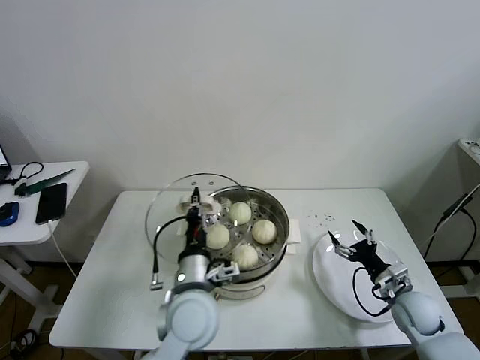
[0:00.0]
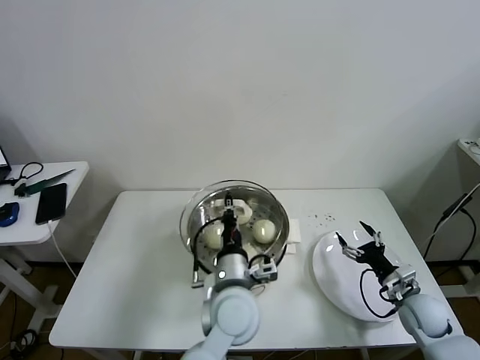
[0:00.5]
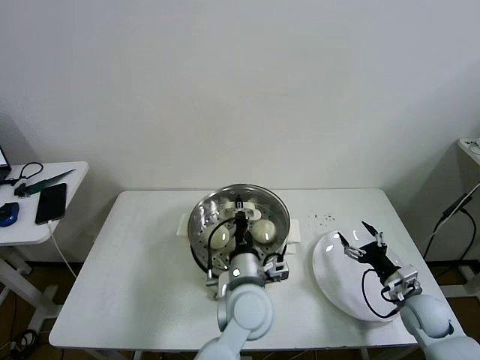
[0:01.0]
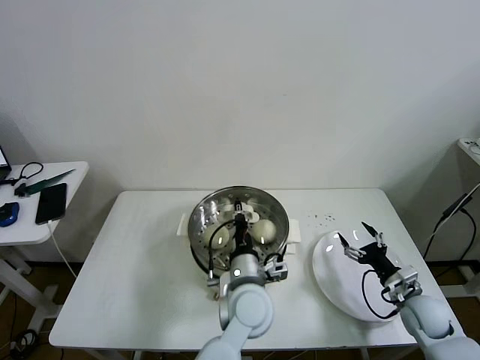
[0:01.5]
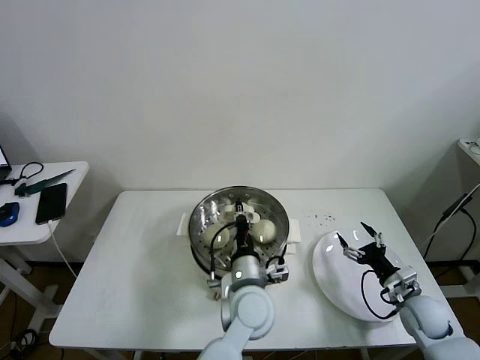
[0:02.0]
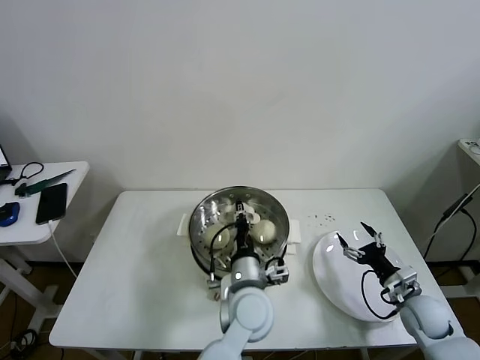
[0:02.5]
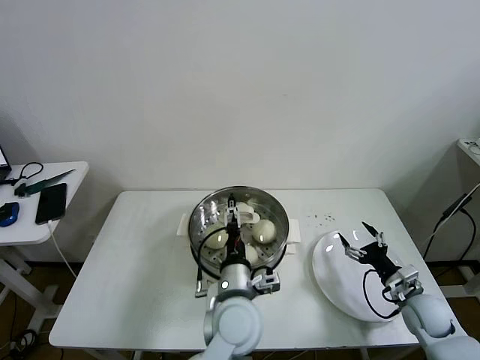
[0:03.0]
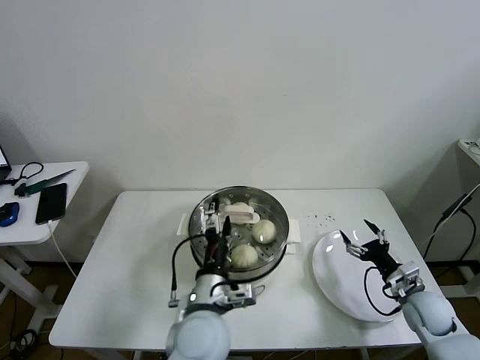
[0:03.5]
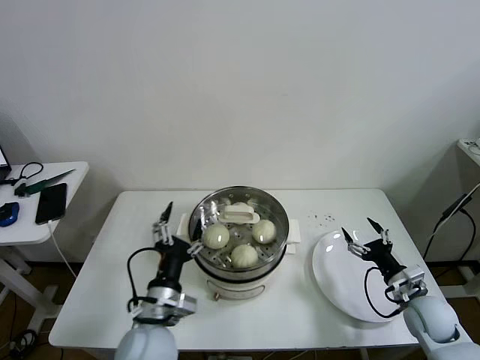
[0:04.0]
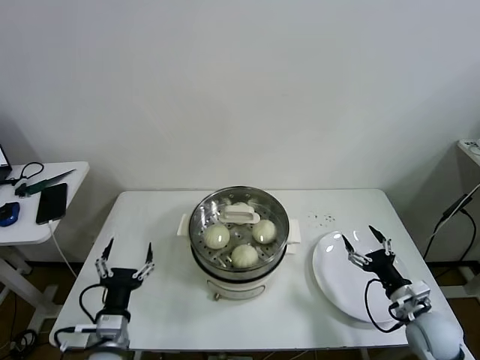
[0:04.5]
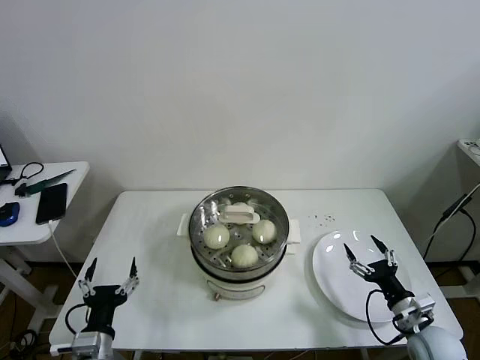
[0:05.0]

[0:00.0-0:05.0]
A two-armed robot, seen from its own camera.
Task of the whole recording: take steamed baozi put them in steamer then cover it.
Step, 0.0 to 2.5 s: Place the pot lid on the steamer with left gripper.
0.0 to 2.5 s: The left gripper heads to the right and downward, covering some 15 cm.
2.5 to 5.0 s: The left gripper shifts roughly 35 cm to the left and backward, and opens its fingers. Meanwhile the right gripper heads backward, covering some 5 cm.

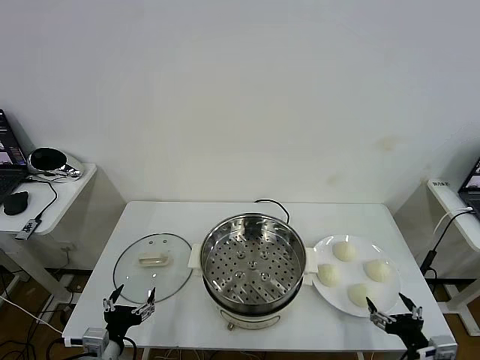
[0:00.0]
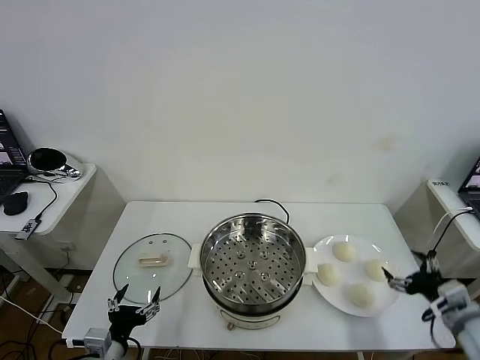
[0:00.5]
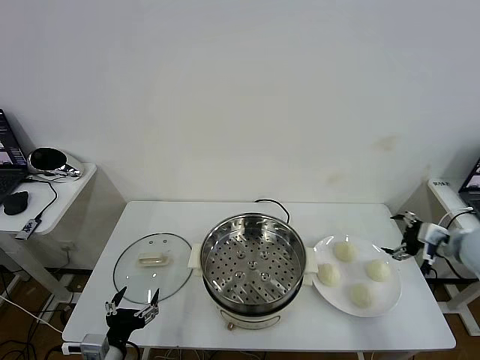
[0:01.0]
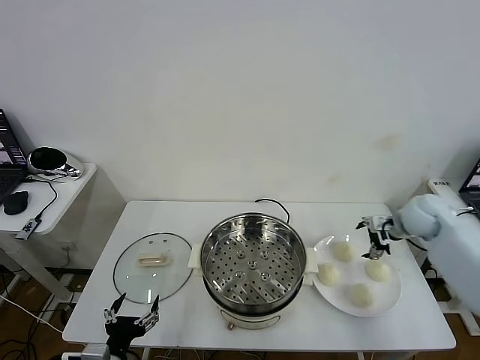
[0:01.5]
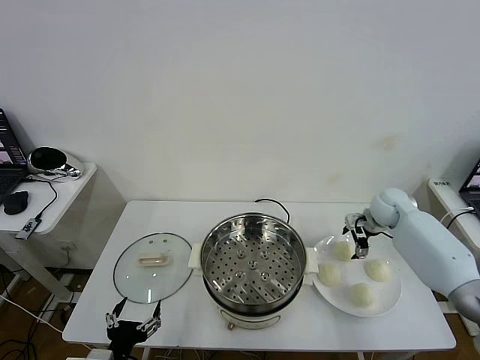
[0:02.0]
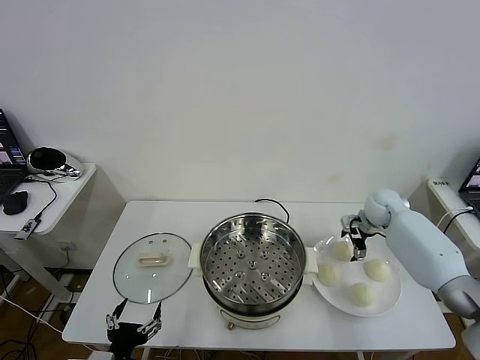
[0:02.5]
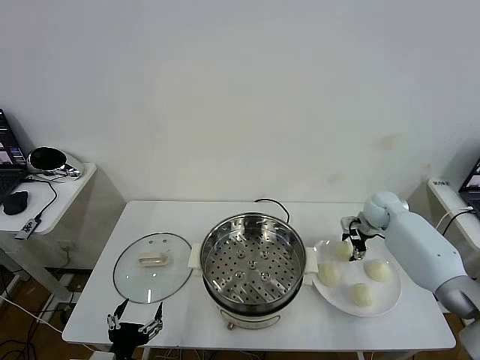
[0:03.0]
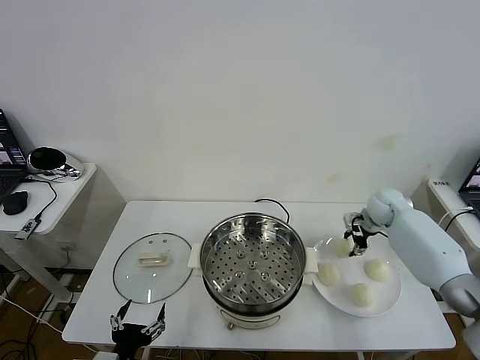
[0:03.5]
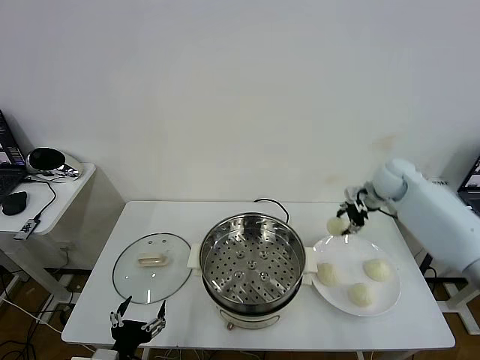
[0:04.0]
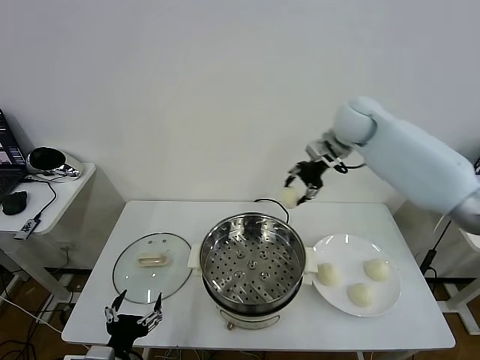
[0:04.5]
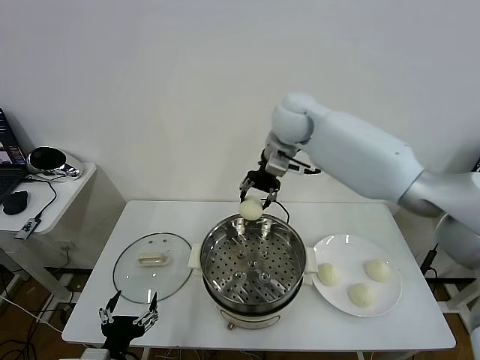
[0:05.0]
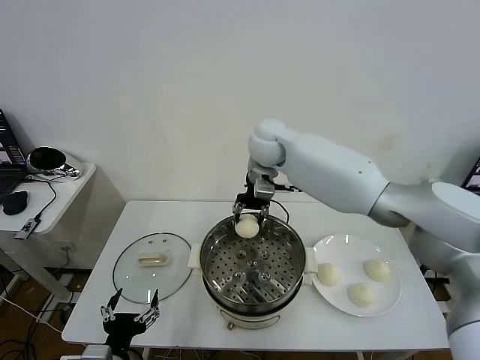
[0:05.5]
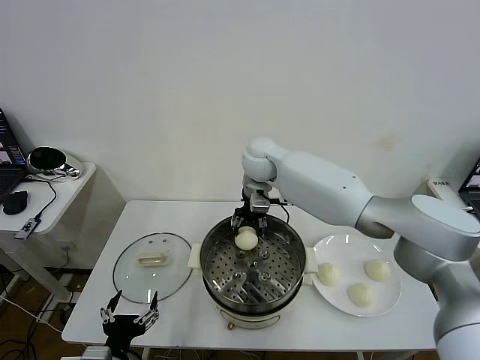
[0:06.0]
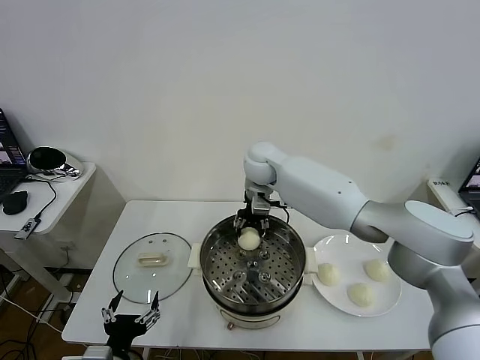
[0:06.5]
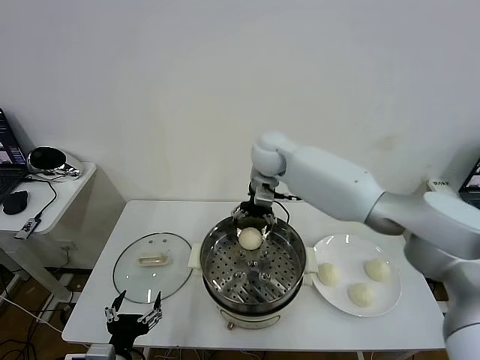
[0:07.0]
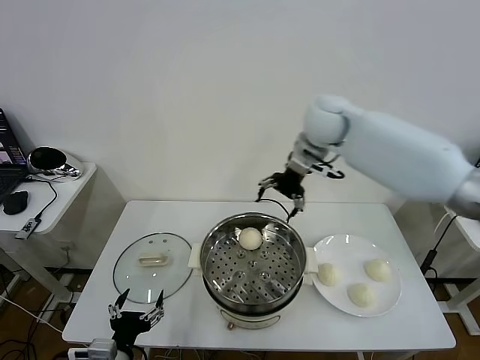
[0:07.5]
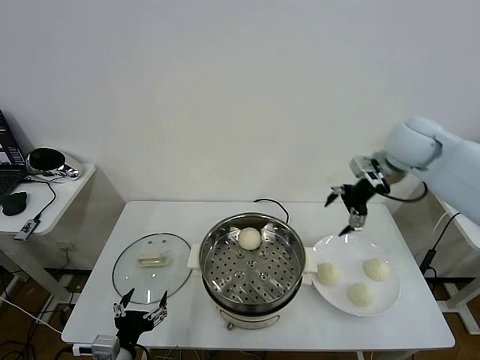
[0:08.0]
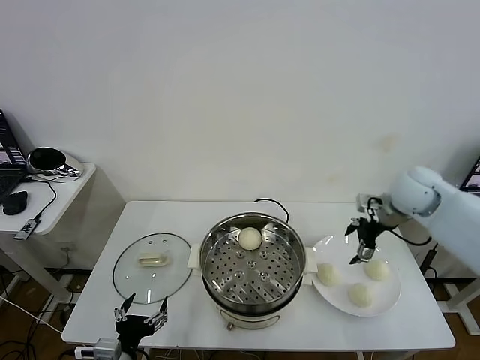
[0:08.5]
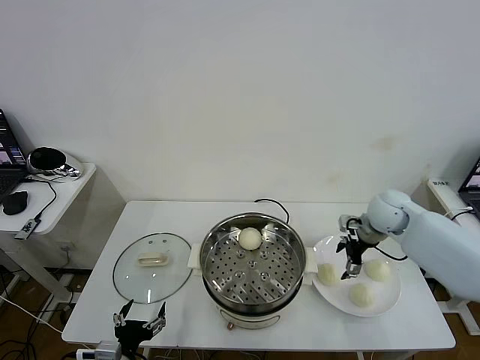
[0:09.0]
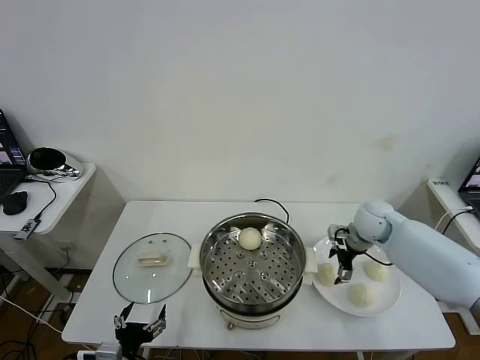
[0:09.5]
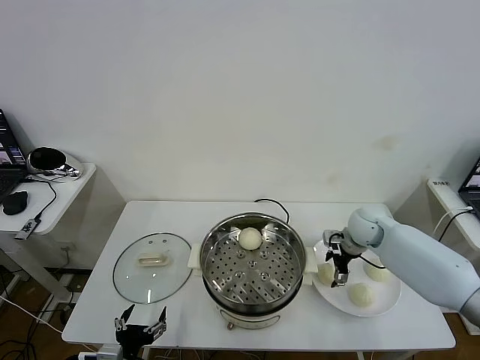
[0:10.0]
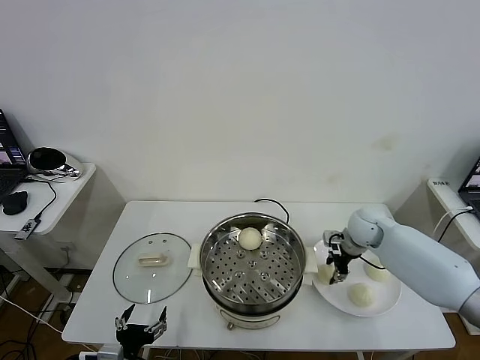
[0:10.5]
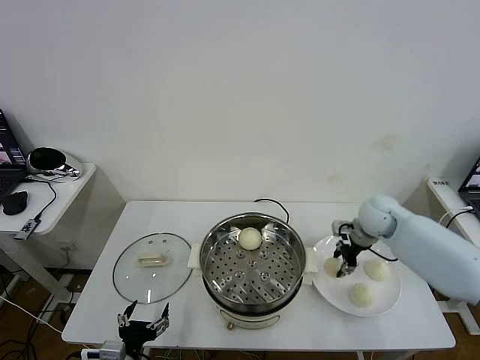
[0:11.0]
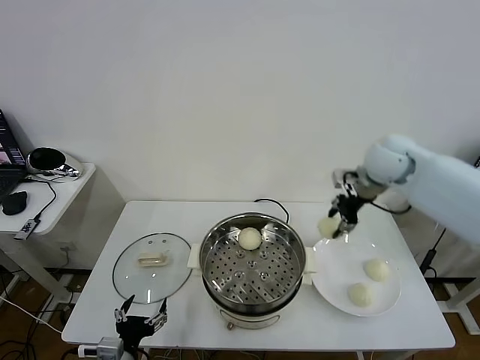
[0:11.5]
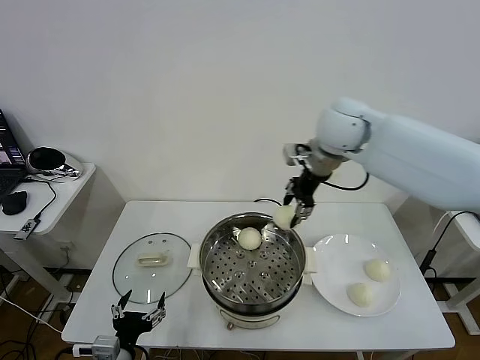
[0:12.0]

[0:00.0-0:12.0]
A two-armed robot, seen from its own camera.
Task of the whole recording: take steamed baozi put them in steamer then cover it.
Step, 0.0 to 3.0 s: Grasp the baozi in the plate with right gripper.
Step, 3.5 to 6.5 s: Place the baozi on the steamer with right gripper.
Step, 7.0 to 10.5 s: Grasp the baozi in the plate with right gripper.
2.0 to 4.0 s: The right gripper travels upward by some 15 cm, and closes its fingers.
4.0 to 6.0 s: The right gripper travels to the left by roughly 30 cm.
6.0 to 8.0 s: The right gripper moves to the right, some 30 cm, and opens up.
8.0 to 10.0 s: The right gripper travels downward by approximately 20 cm.
10.0 to 12.0 s: The right gripper heads upward and to the left, covering roughly 30 cm, and closes up.

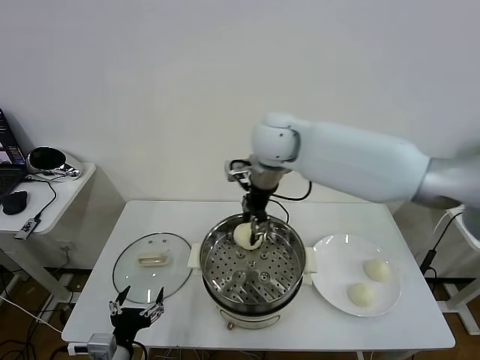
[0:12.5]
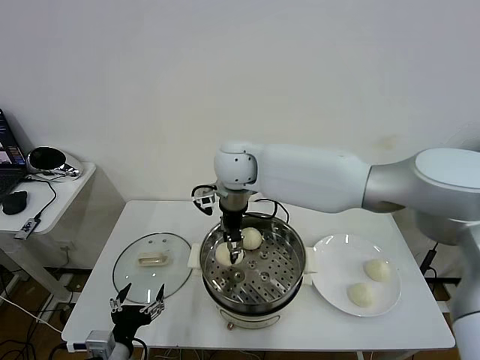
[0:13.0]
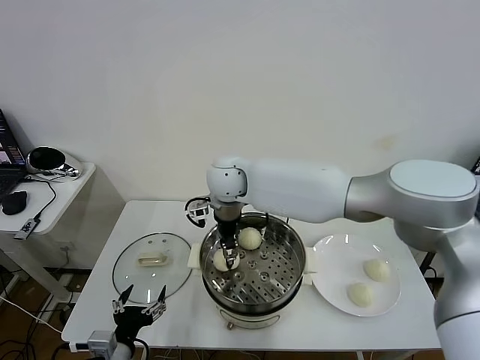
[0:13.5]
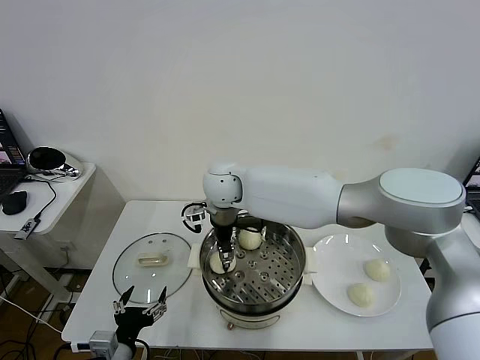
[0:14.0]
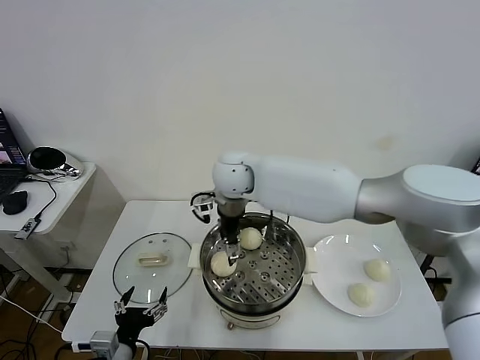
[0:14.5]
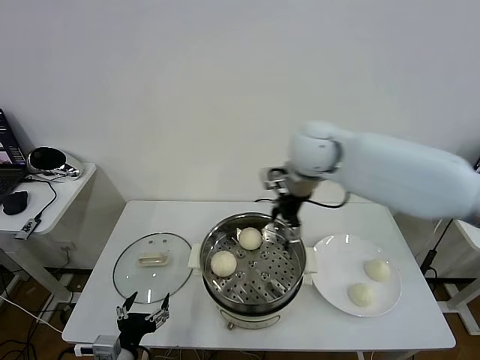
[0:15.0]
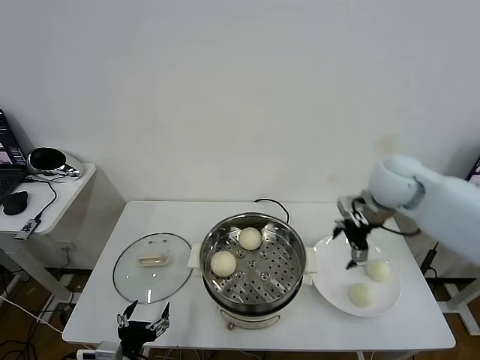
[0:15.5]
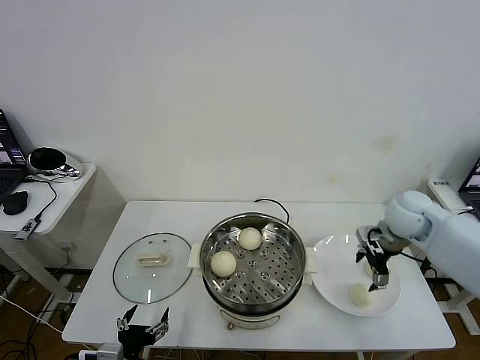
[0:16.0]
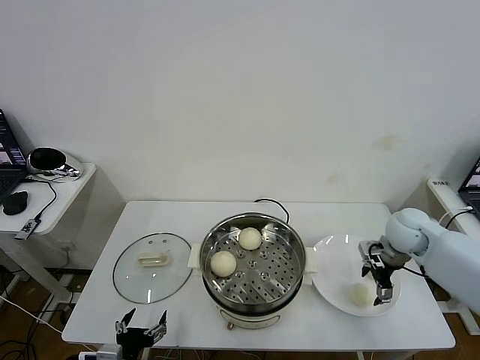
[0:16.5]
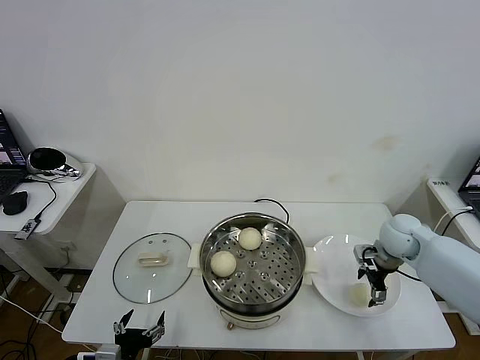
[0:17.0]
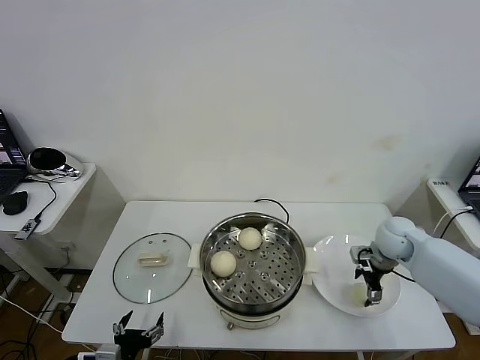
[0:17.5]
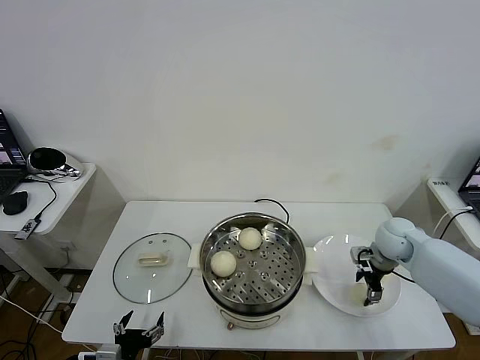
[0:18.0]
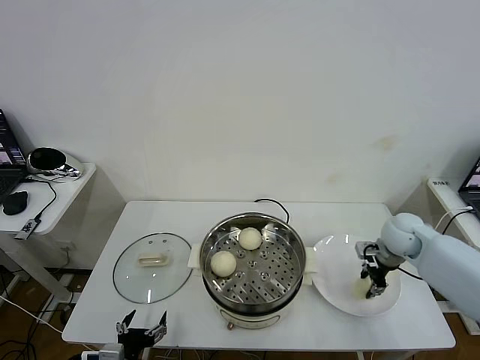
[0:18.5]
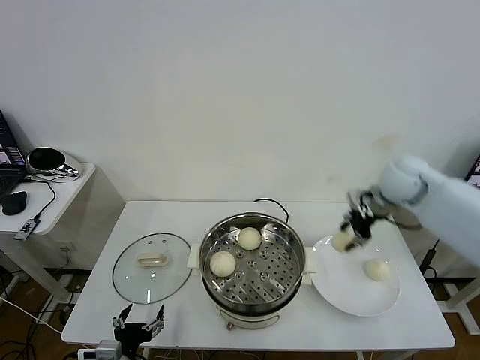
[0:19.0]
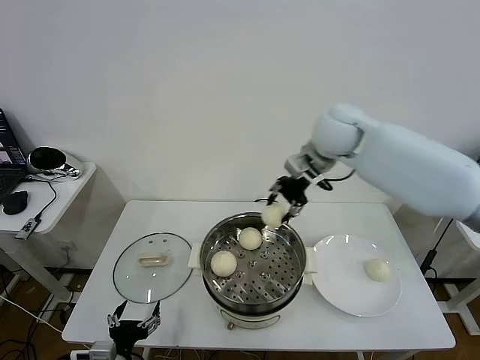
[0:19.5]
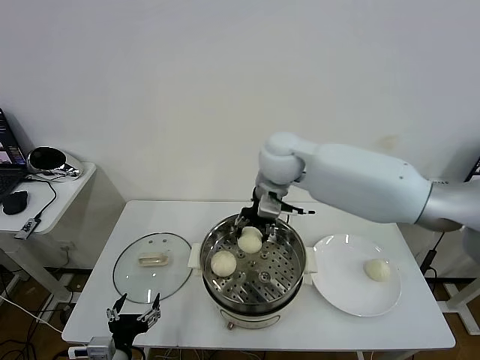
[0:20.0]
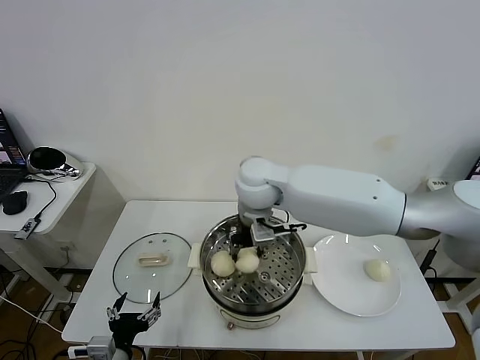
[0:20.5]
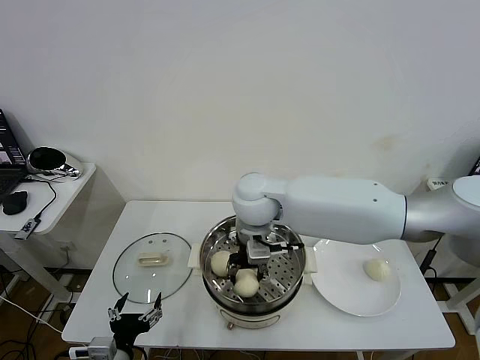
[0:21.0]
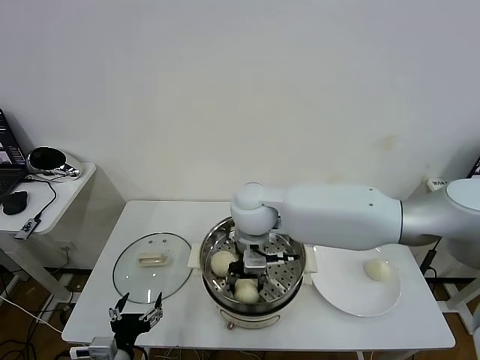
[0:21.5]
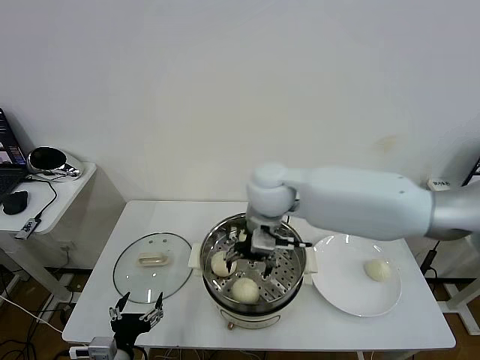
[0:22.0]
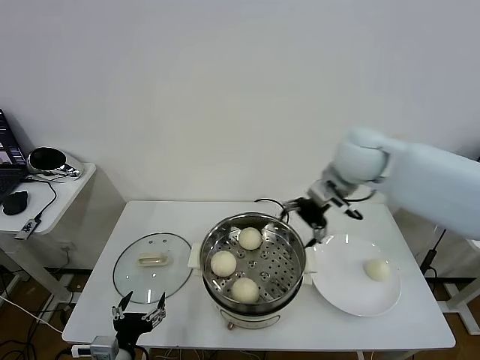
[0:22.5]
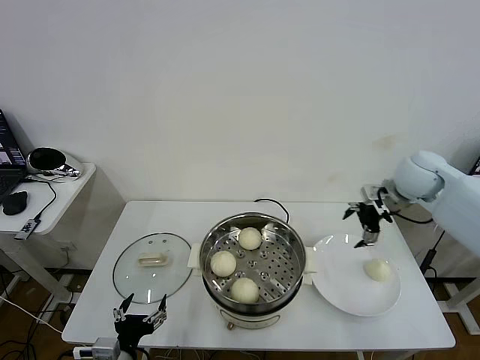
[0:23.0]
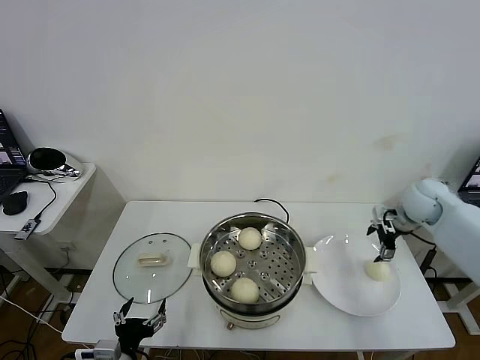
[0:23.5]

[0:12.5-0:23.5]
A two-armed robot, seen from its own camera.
Task of the whole recording: take steamed baozi put them in steamer then cover it.
Step, 14.5 to 18.0 s: Grasp the baozi in the plate with right gripper.
Step, 18.5 to 21.5 s: Place the baozi on the steamer with right gripper.
12.5 to 14.5 s: The right gripper moves downward and to the left, approximately 10 cm, and opens its fingers.
14.5 to 16.0 s: The right gripper moves to the right, about 35 cm.
16.0 to 18.0 s: The right gripper shifts some 10 cm downward, and closes up.
18.0 to 20.0 s: The right gripper moves to the left and upward, about 35 cm, and closes up.
20.0 to 21.5 s: The right gripper shifts about 10 cm backward and downward.
21.5 to 23.5 s: The right gripper goes roughly 40 cm to the right, and opens up.
